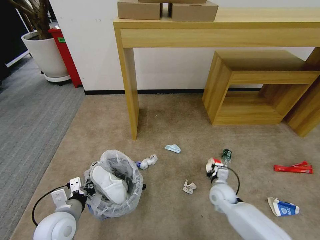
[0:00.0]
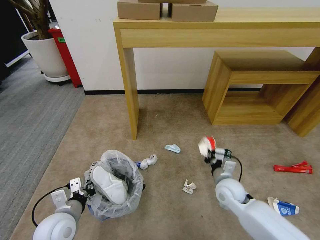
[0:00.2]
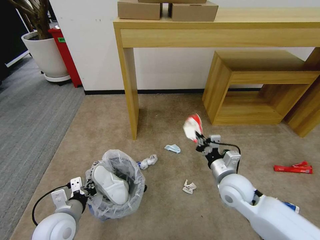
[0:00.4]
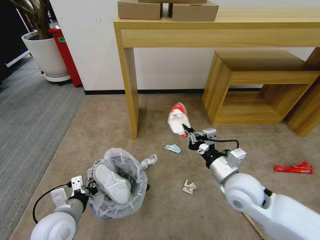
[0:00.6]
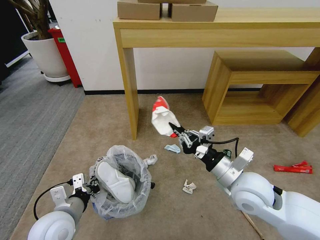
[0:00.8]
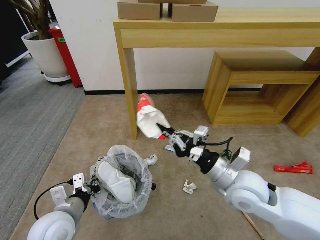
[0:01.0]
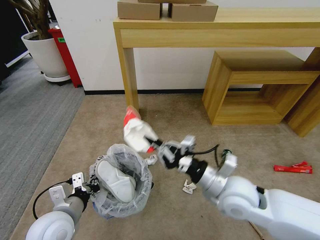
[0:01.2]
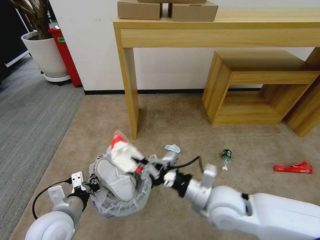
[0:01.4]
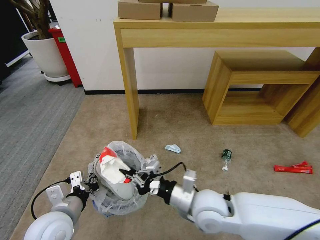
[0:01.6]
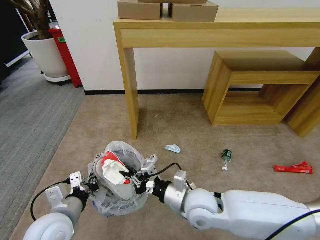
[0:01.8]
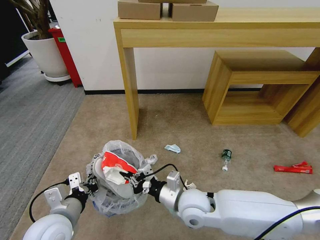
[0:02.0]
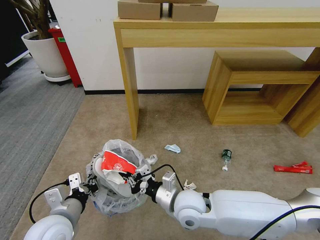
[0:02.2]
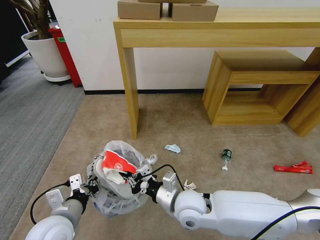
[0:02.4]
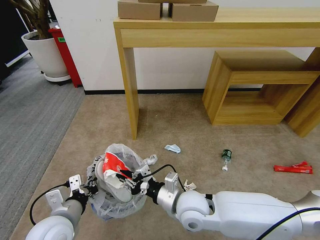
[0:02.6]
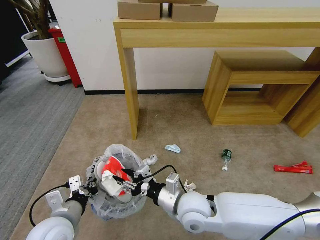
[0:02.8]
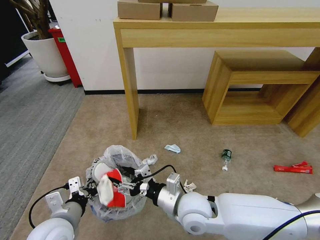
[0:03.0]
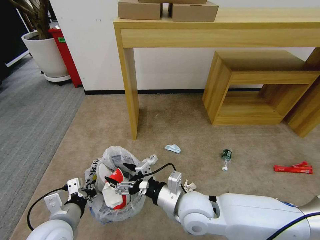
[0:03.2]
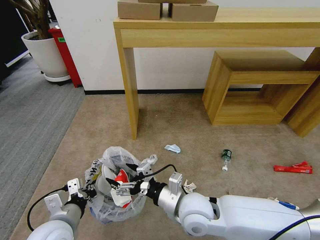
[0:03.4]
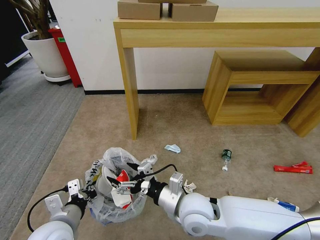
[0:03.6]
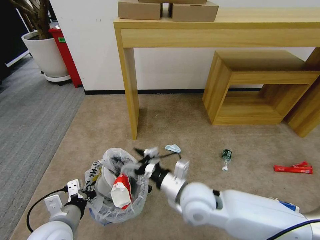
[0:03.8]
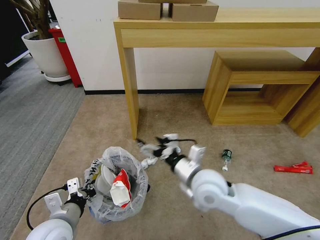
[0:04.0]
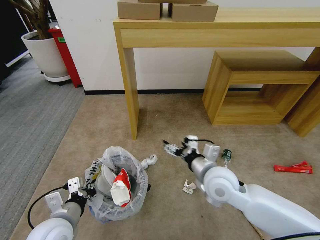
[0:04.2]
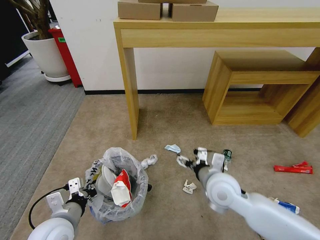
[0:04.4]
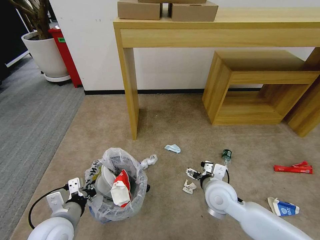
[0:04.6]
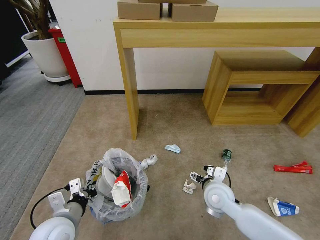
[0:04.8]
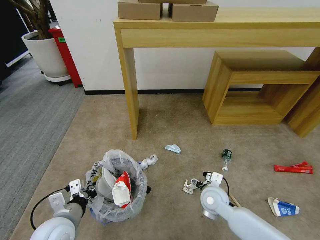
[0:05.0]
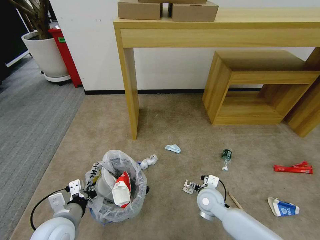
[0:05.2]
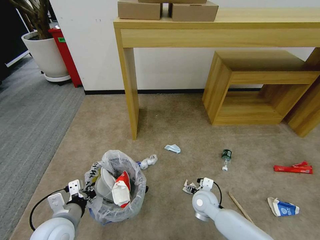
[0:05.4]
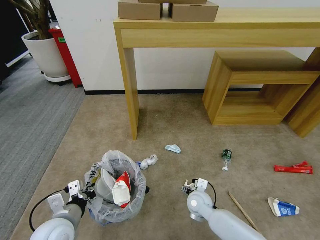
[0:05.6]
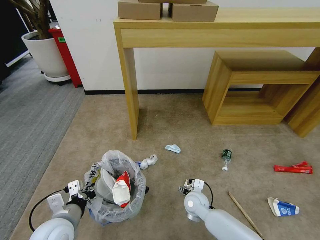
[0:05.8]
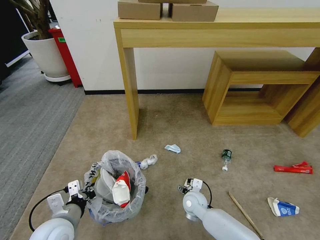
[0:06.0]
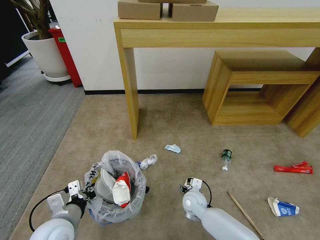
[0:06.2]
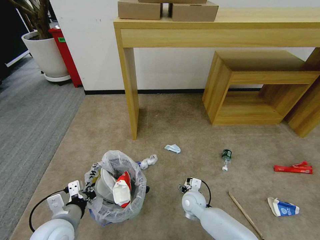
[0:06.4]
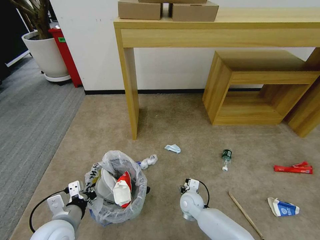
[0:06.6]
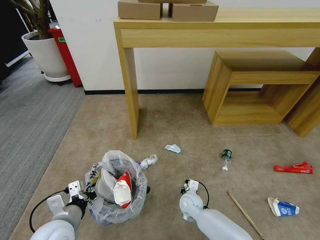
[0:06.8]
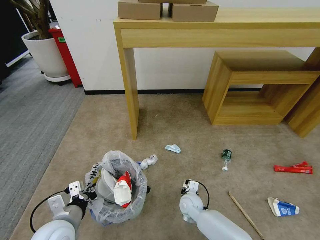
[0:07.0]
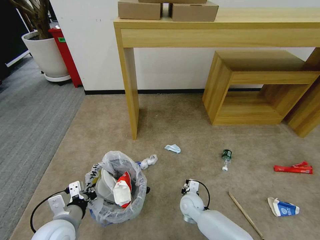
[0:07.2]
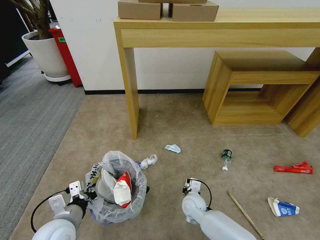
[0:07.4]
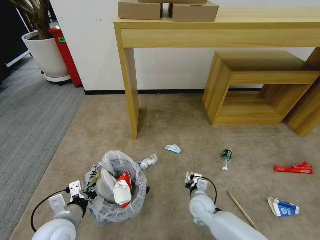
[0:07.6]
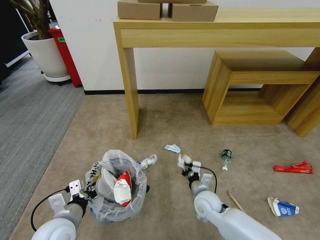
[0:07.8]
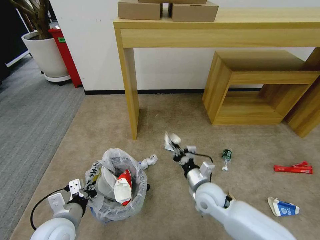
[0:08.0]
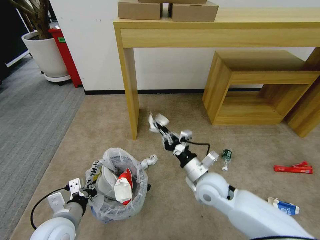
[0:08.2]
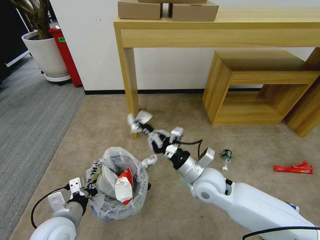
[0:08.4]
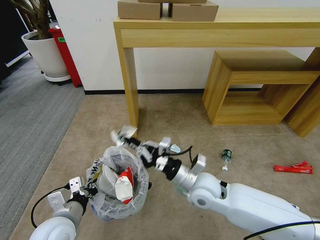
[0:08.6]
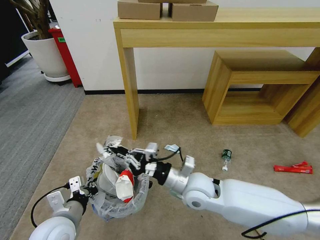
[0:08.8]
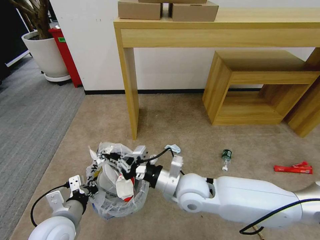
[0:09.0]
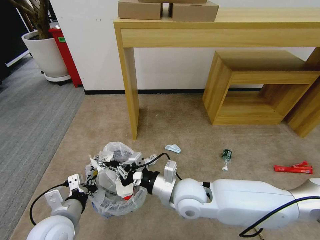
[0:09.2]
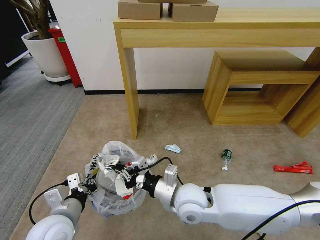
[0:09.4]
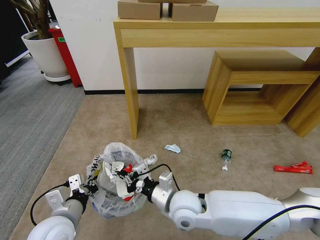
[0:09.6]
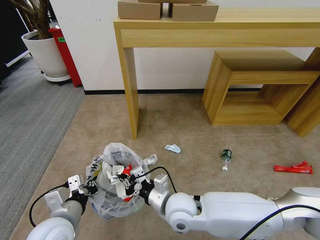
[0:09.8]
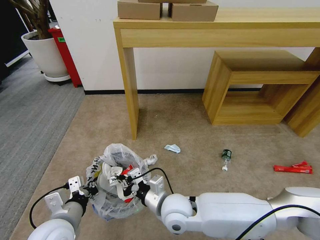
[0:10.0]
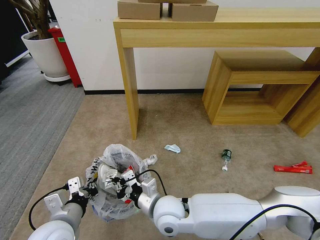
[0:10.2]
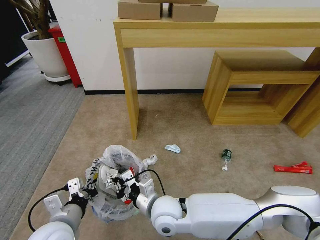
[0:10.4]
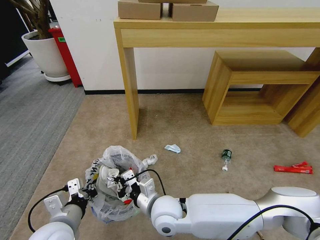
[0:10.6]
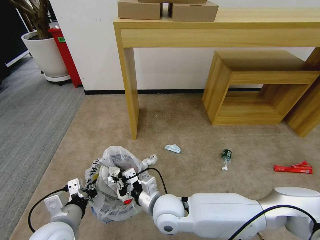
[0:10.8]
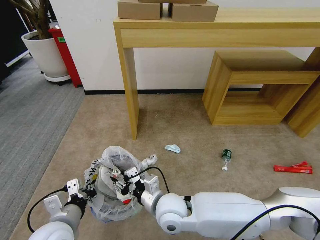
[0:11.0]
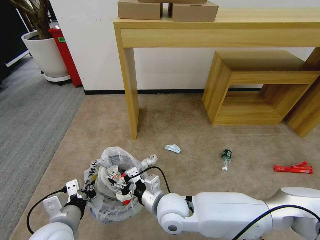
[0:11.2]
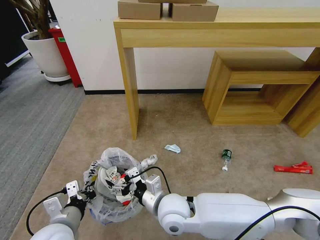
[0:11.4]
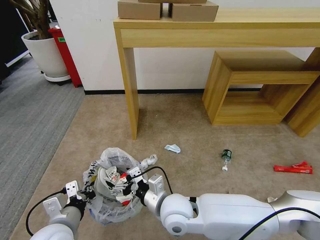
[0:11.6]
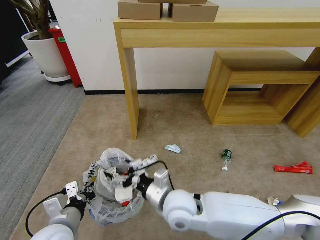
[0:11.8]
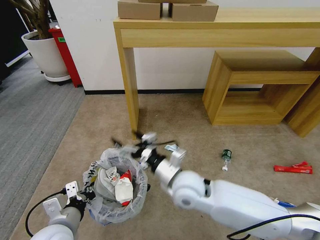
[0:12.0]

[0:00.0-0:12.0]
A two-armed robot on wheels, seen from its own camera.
Task of the whole recording: Pick up the trash bin and place the garbage on the floor into it.
0:00.0 to 0:01.6: The right gripper heads upward, to the left and backward, covering about 25 cm. Meanwhile the left gripper heads upward, covering some 5 cm.
0:01.6 to 0:03.0: The right gripper opens its fingers.
0:03.0 to 0:04.4: The right gripper heads to the right and forward, covering some 10 cm.
0:04.4 to 0:06.0: The right gripper heads downward, covering about 20 cm.
0:06.0 to 0:07.6: The right gripper closes.
0:07.6 to 0:09.0: The right gripper moves upward, roughly 20 cm.
0:09.0 to 0:10.4: The right gripper moves to the left and downward, about 10 cm.
0:10.4 to 0:12.0: The right gripper is displaced upward and to the right by some 10 cm, and opens up.

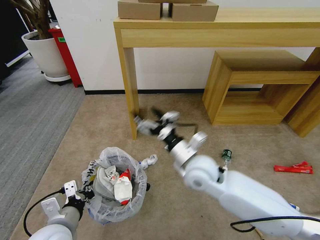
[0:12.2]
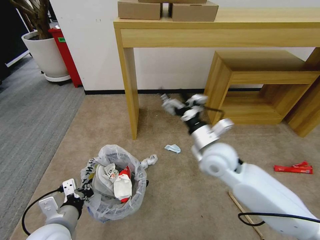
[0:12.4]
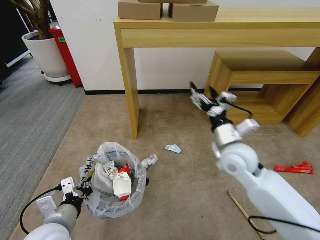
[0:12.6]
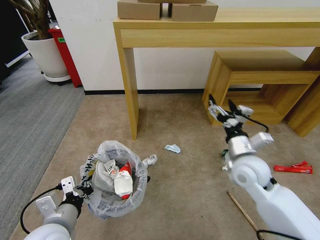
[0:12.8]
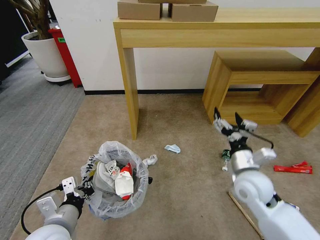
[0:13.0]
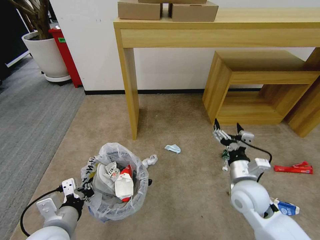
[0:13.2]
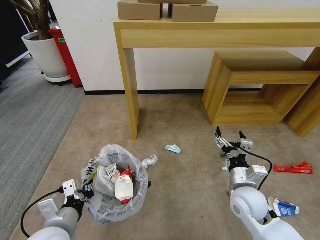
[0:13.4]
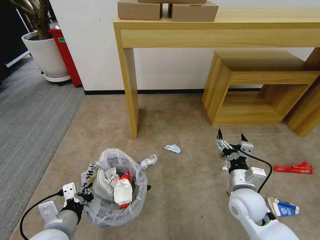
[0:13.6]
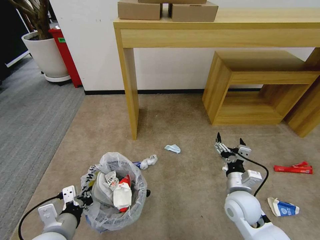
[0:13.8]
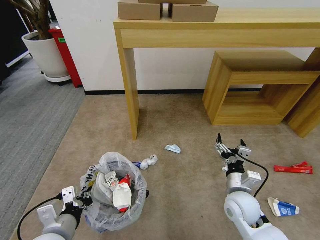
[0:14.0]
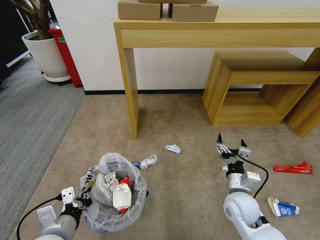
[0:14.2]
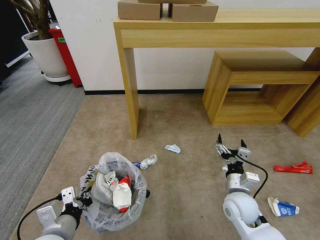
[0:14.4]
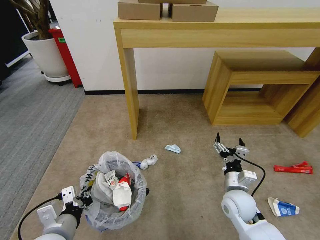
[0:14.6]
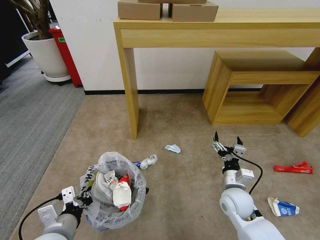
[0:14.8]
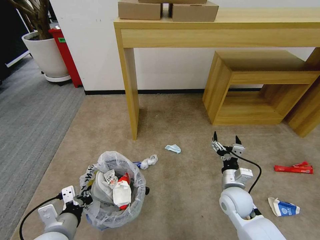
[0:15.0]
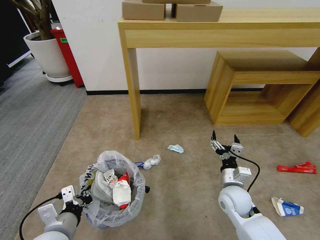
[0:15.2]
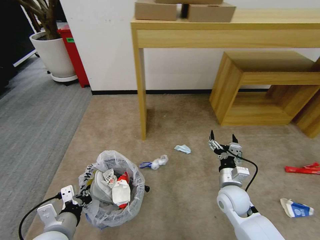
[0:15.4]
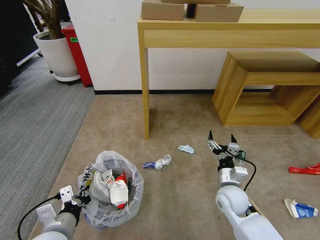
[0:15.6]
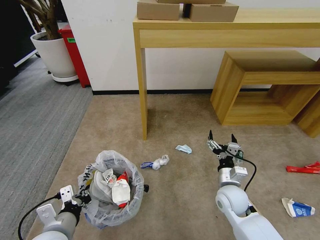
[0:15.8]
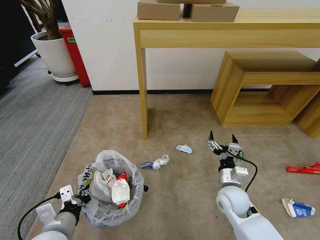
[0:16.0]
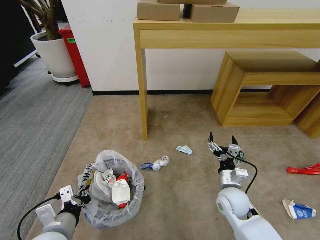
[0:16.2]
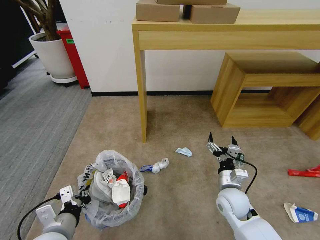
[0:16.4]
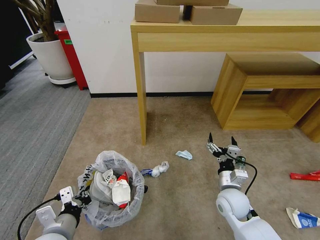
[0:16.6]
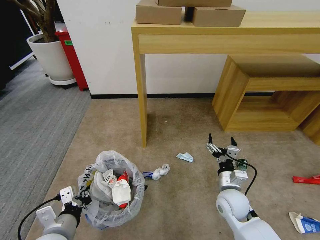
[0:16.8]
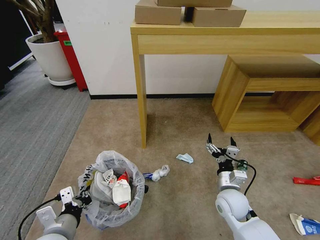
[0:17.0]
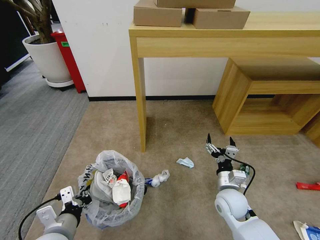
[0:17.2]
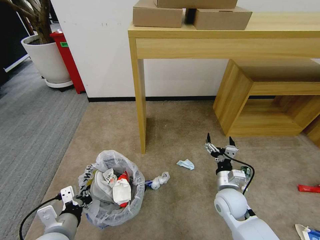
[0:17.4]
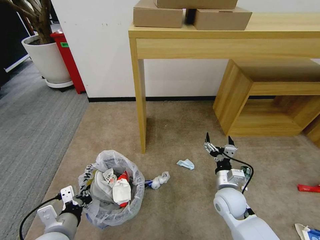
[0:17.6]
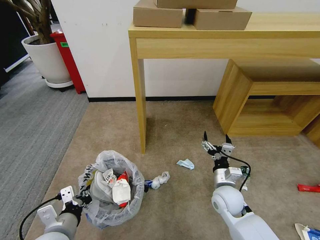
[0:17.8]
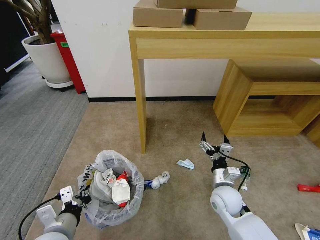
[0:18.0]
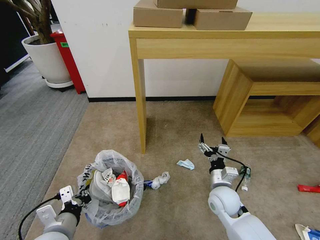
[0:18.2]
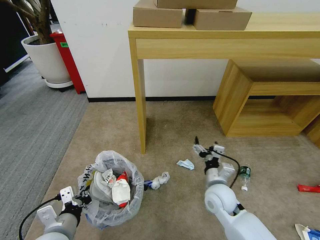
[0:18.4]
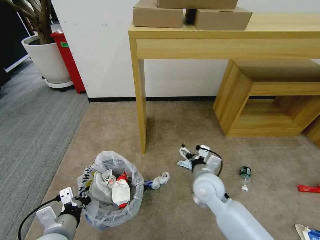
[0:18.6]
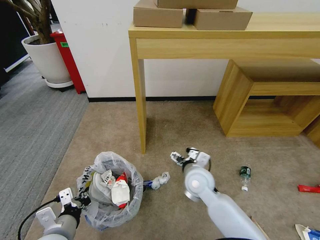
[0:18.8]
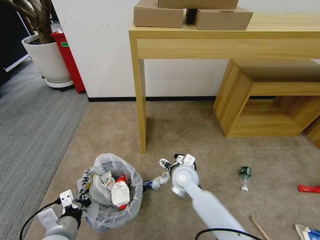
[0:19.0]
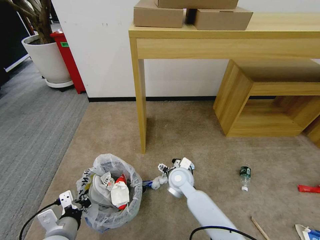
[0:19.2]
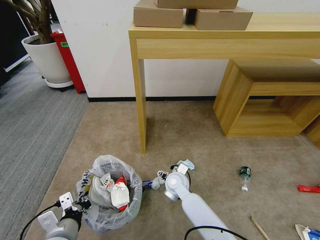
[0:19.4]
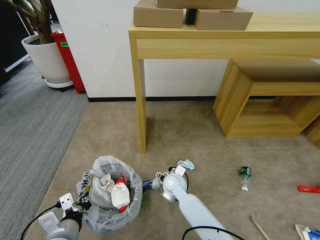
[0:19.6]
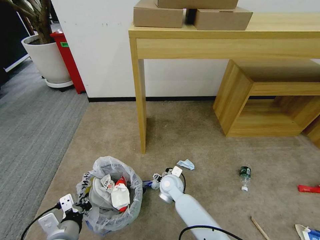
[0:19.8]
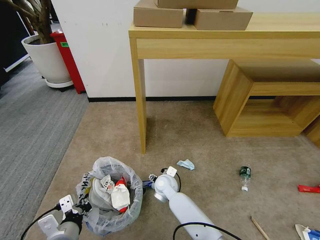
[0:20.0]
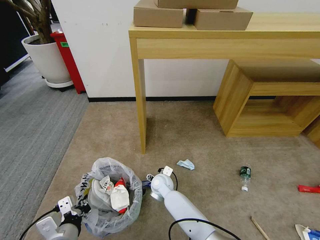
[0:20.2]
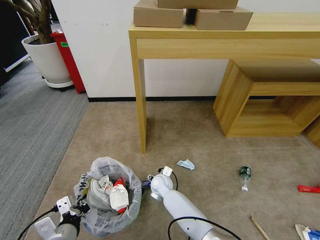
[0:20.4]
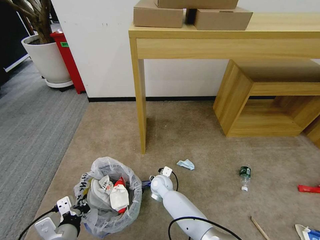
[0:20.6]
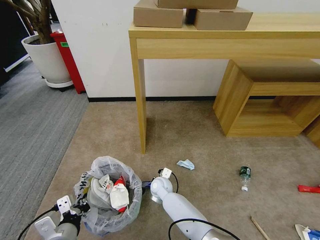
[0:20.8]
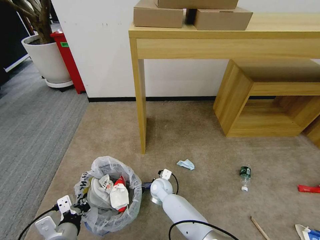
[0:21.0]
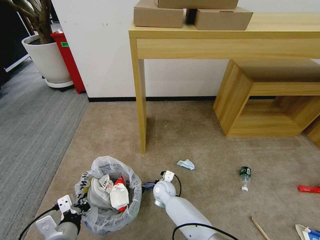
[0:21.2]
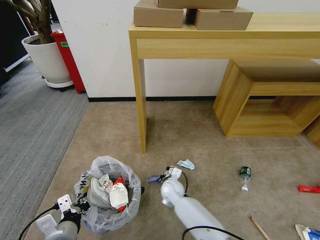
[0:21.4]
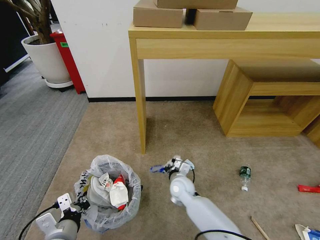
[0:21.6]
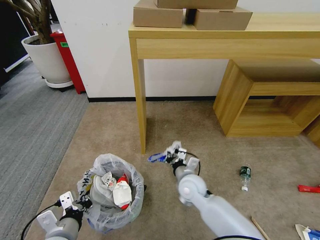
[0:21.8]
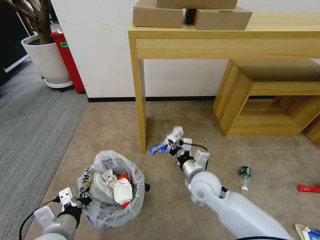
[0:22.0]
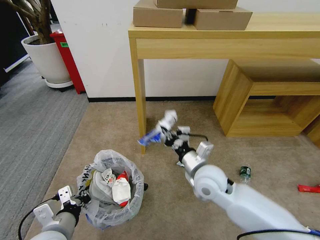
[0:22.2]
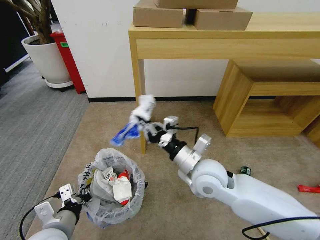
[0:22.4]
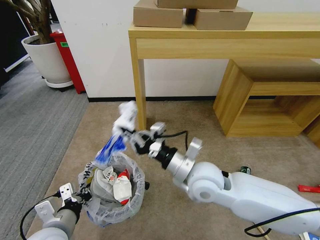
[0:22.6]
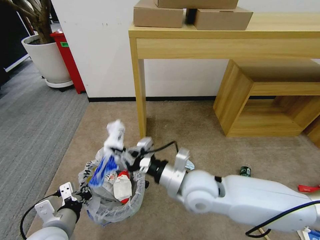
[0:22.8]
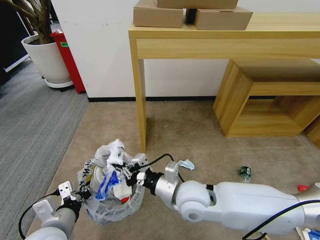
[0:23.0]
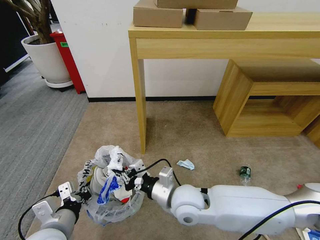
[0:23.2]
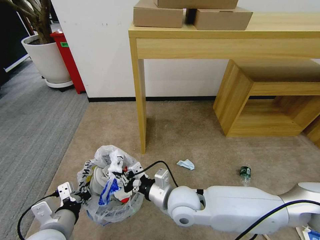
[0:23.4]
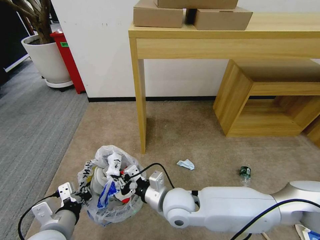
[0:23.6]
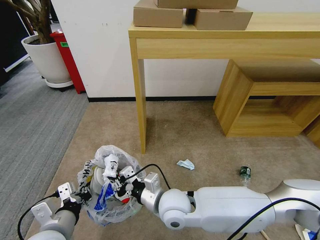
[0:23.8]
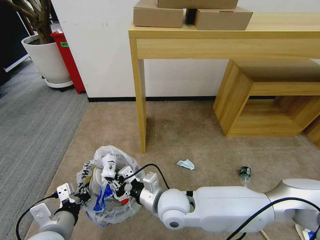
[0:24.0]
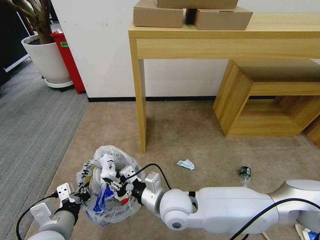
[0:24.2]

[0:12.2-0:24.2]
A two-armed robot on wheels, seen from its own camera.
Task of the whole recording: Pick up the trash bin and place the garbage on the floor into it.
0:12.2 to 0:13.8: The right gripper travels to the right, downward and backward by approximately 20 cm.
0:13.8 to 0:15.2: The grippers stay close to where they were, moving slightly.
0:18.2 to 0:19.8: The right gripper goes approximately 20 cm to the left and forward.
0:19.8 to 0:21.2: The right gripper goes approximately 5 cm downward, and closes up.
0:21.2 to 0:22.6: The right gripper moves upward, approximately 30 cm.
0:22.6 to 0:24.2: The right gripper heads downward and to the left, covering about 10 cm.
